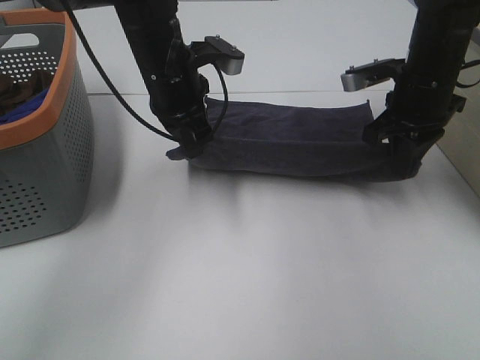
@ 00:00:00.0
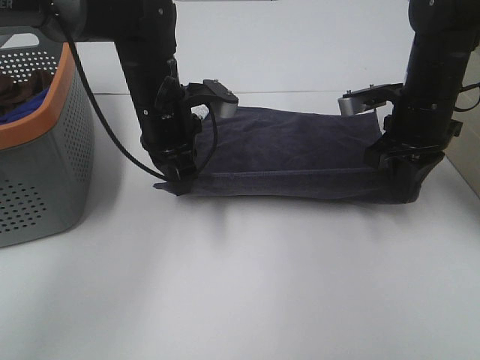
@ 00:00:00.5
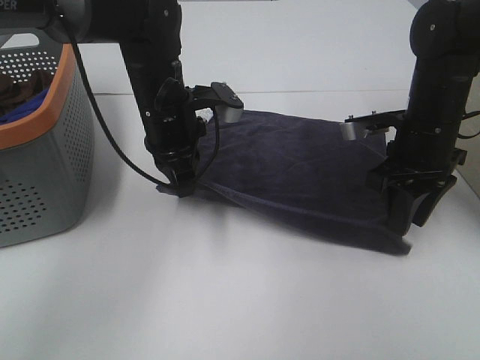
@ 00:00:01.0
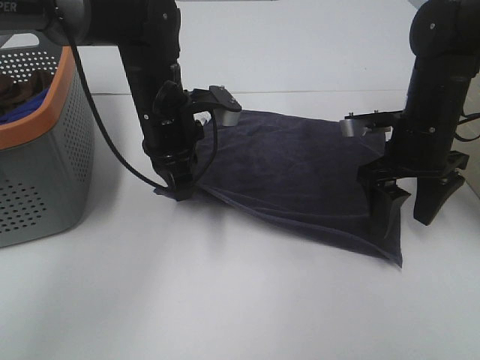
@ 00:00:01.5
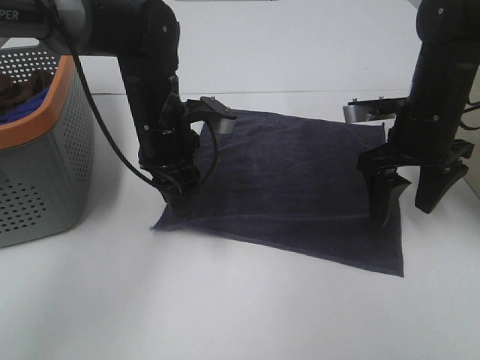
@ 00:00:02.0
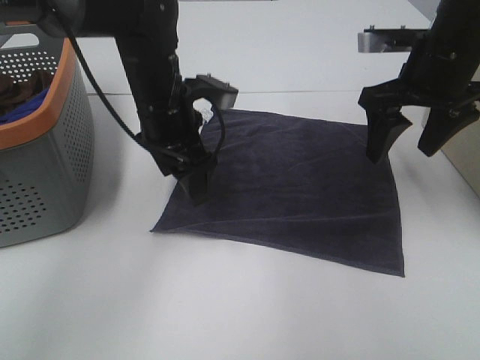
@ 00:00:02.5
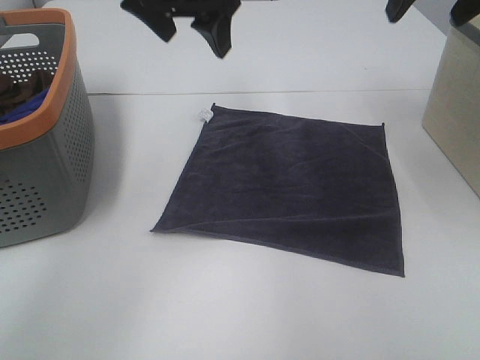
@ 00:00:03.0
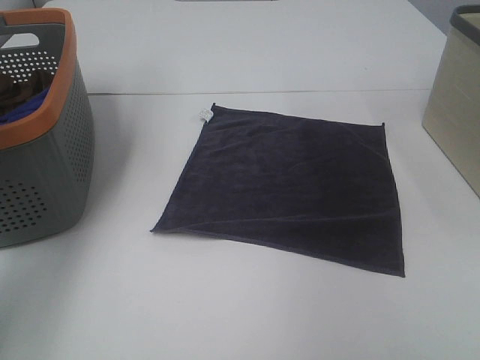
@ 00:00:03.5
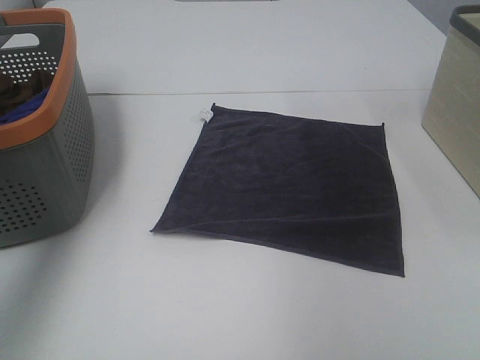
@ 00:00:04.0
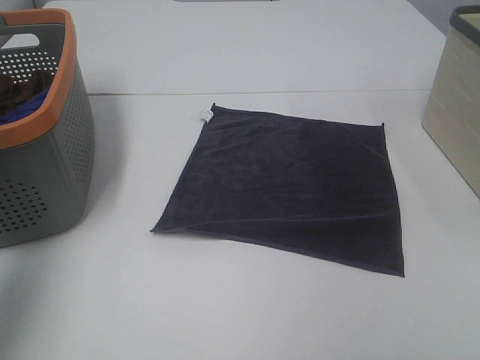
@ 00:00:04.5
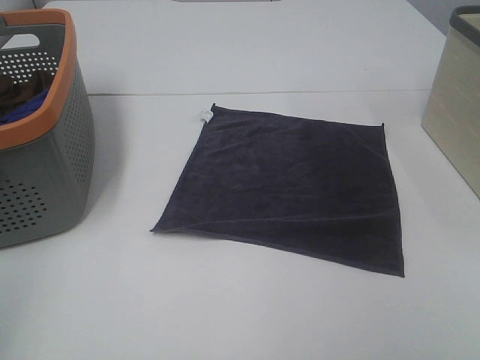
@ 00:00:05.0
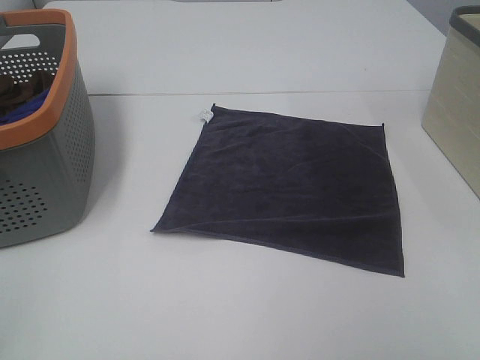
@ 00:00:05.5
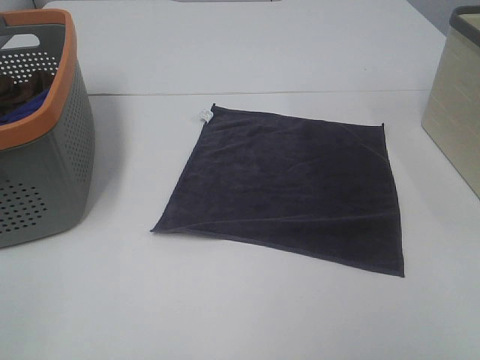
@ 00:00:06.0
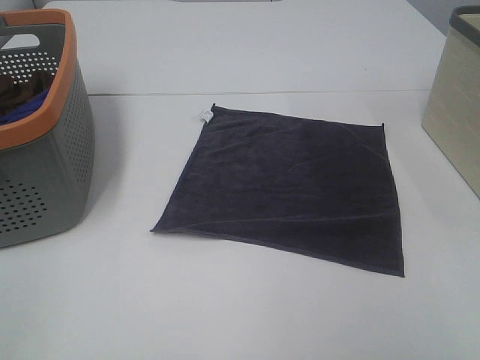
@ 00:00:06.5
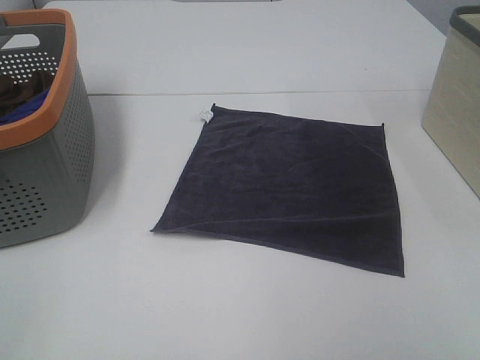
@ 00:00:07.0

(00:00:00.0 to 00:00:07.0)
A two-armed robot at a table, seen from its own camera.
Task of the whole recording: Remove the towel and place it.
00:00:00.0 - 00:00:02.0: The left gripper shifts by some 5 cm, and opens up. The right gripper opens its fingers.
00:00:02.0 - 00:00:03.5: The left gripper goes about 30 cm upward and to the left, and opens up, while the right gripper travels upward and to the right by some 25 cm.
00:00:03.5 - 00:00:05.0: The left gripper is displaced backward by roughly 35 cm.
